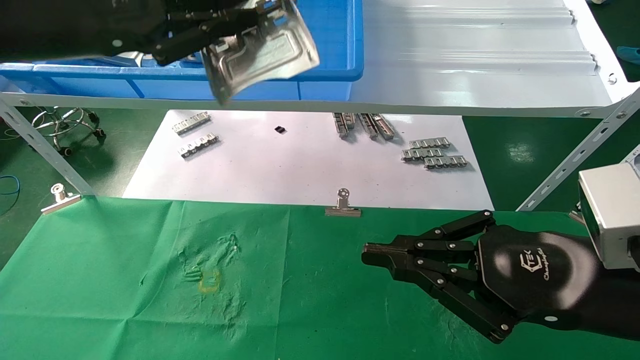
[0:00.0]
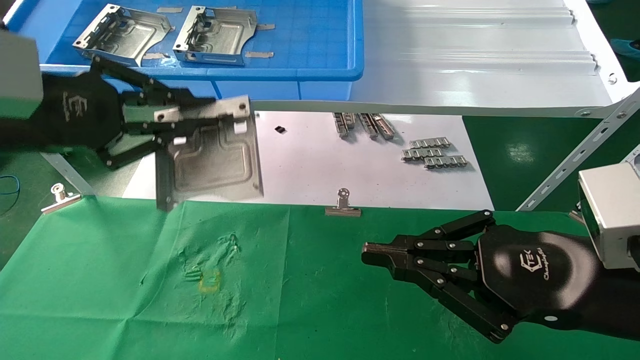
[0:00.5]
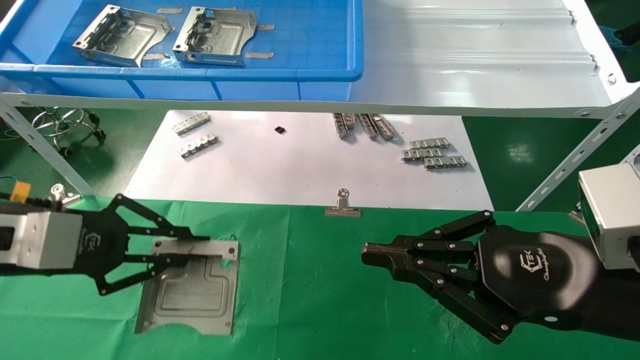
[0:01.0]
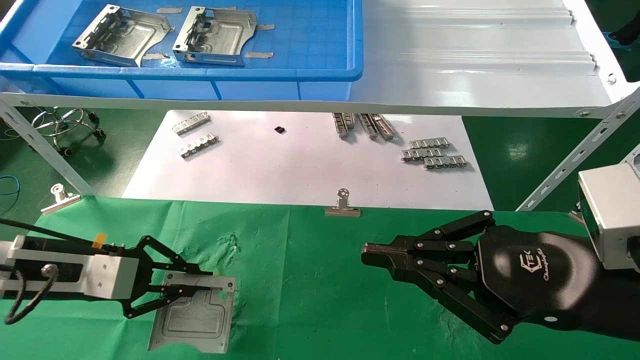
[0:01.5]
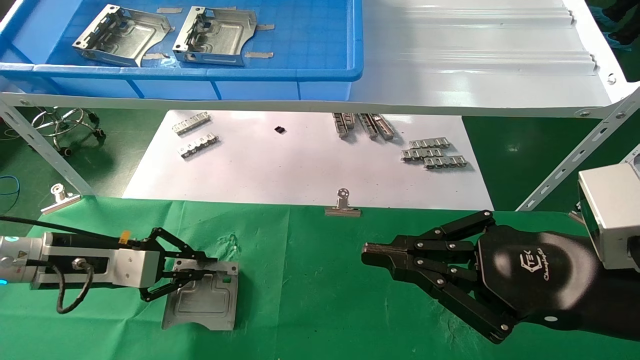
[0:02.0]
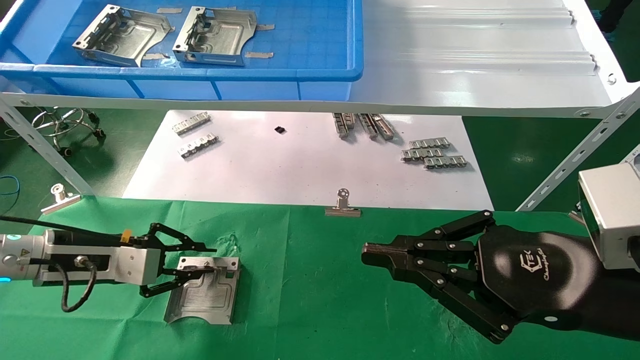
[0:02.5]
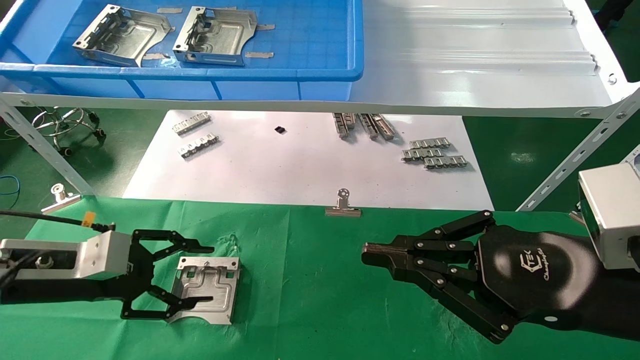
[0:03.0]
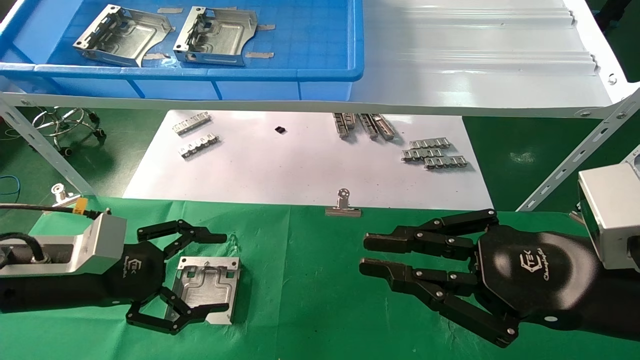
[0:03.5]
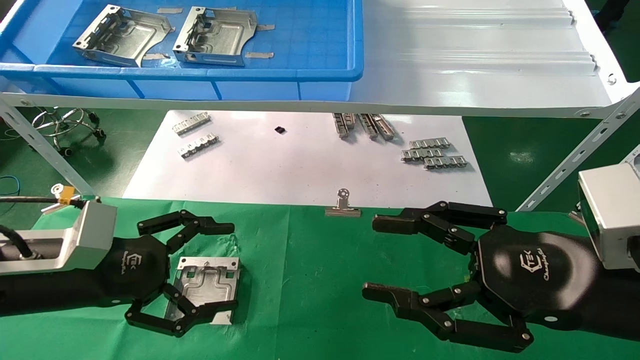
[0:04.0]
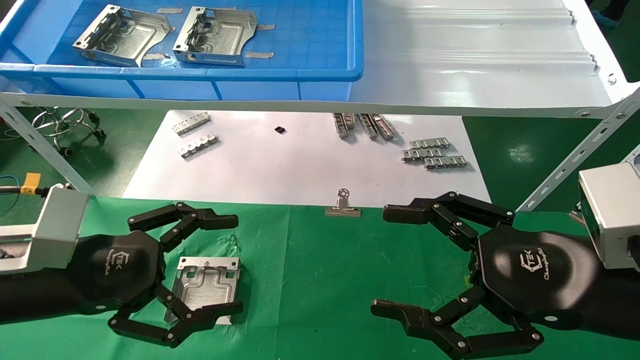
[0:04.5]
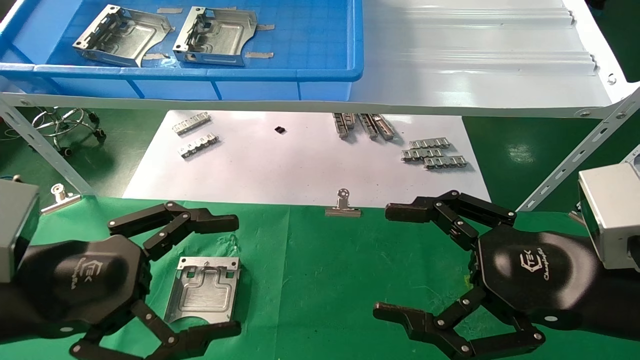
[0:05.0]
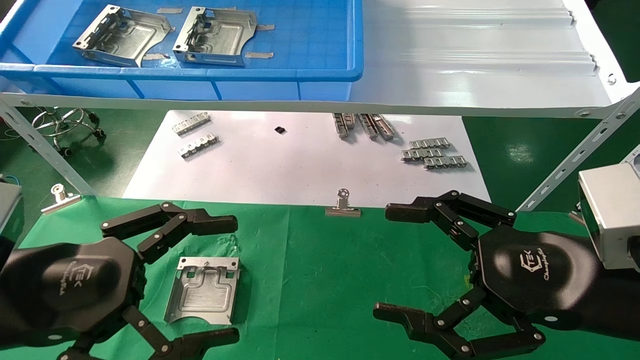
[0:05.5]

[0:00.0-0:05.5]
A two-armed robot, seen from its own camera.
Task of the whole recording: use the mechanical arm to pick up the parts and place them on the table.
Step, 0:00.0 to 0:02.5: Place the hard drive bracket into the box.
0:00.0 to 0:02.0: The left gripper heads downward, covering approximately 25 cm.
0:02.0 to 0:03.5: The left gripper moves backward, approximately 5 cm, and opens up.
0:03.5 to 0:05.5: The left gripper heads backward and upward, covering about 15 cm. The right gripper opens up.
